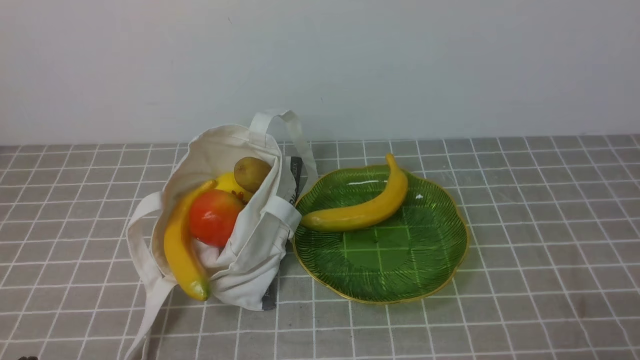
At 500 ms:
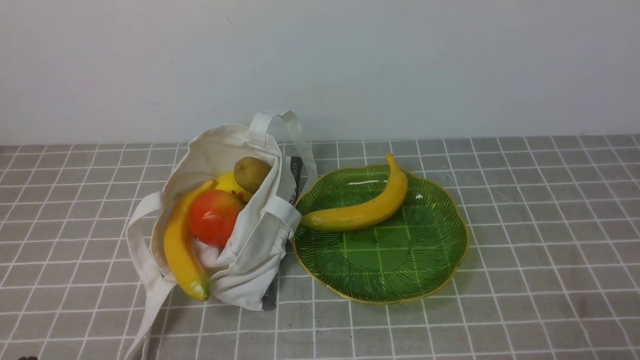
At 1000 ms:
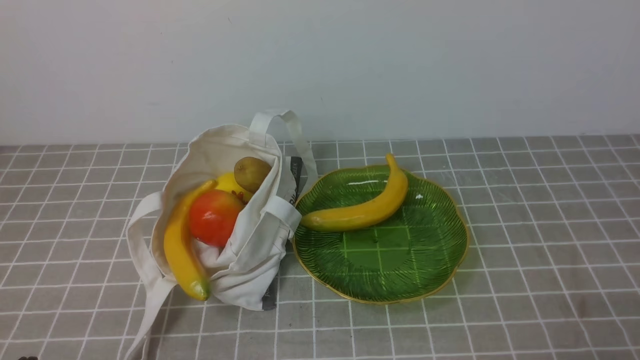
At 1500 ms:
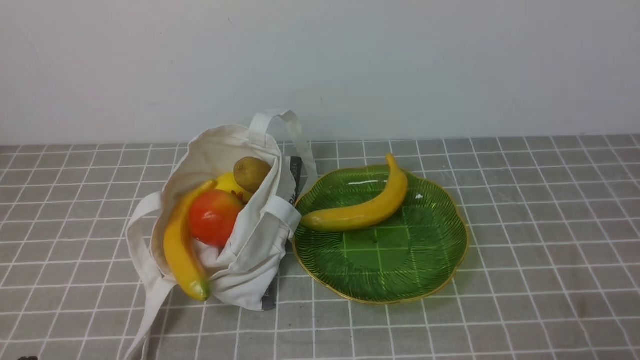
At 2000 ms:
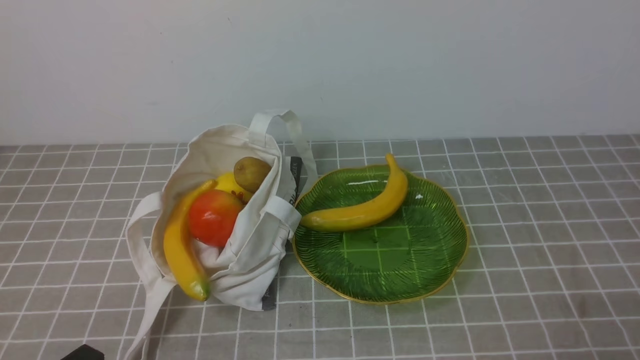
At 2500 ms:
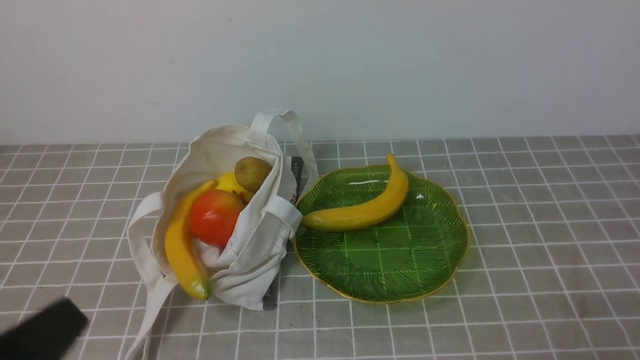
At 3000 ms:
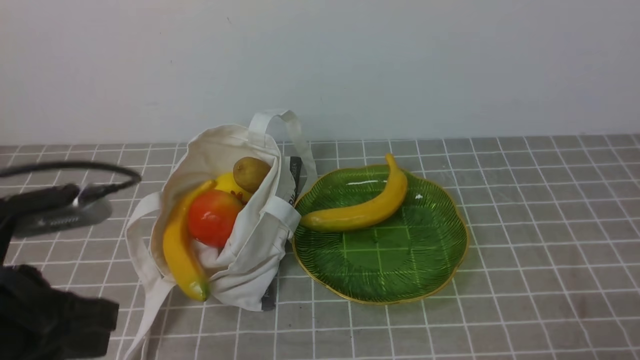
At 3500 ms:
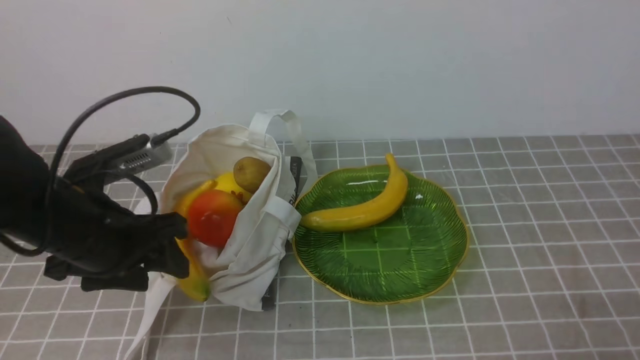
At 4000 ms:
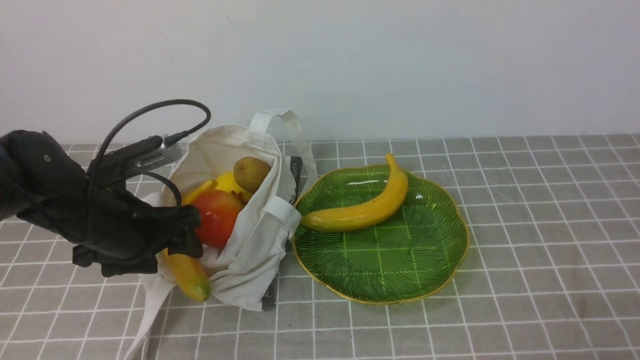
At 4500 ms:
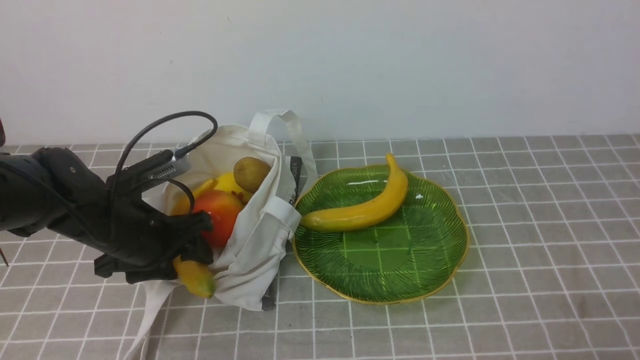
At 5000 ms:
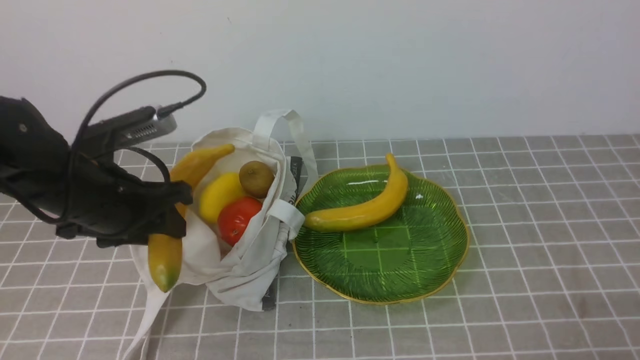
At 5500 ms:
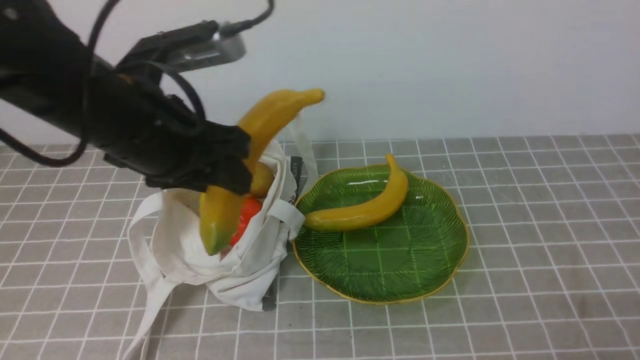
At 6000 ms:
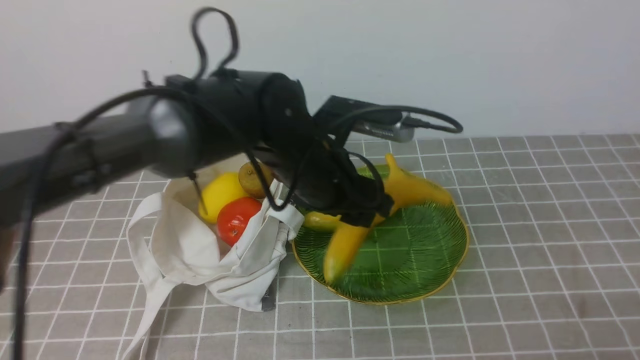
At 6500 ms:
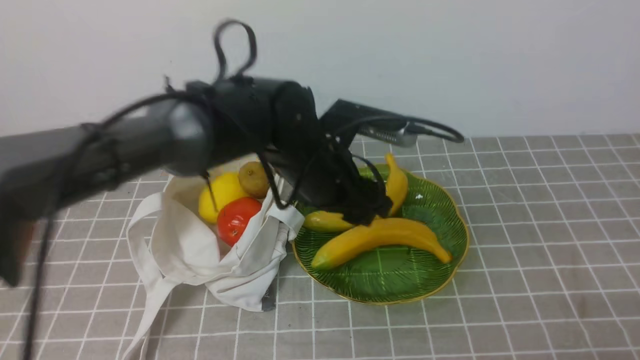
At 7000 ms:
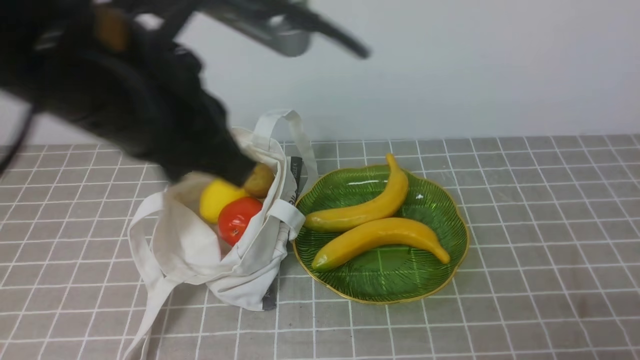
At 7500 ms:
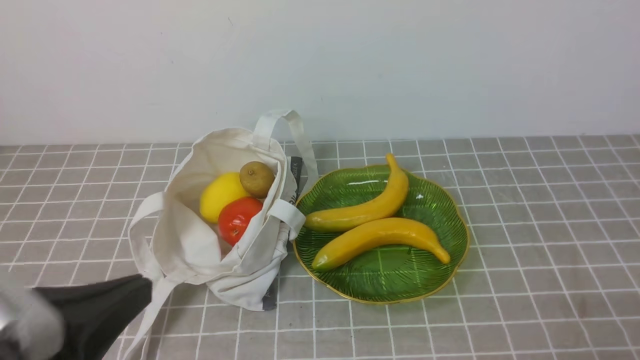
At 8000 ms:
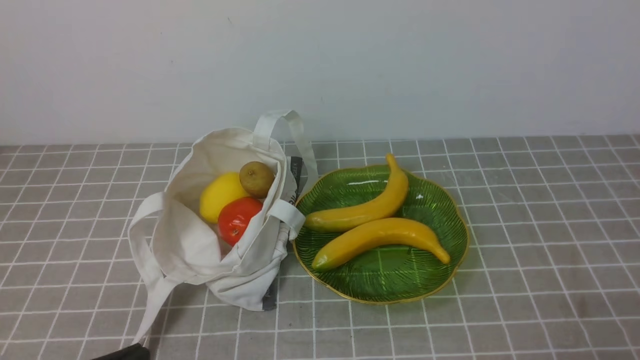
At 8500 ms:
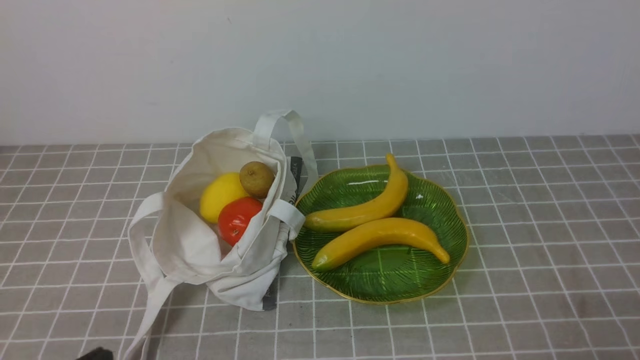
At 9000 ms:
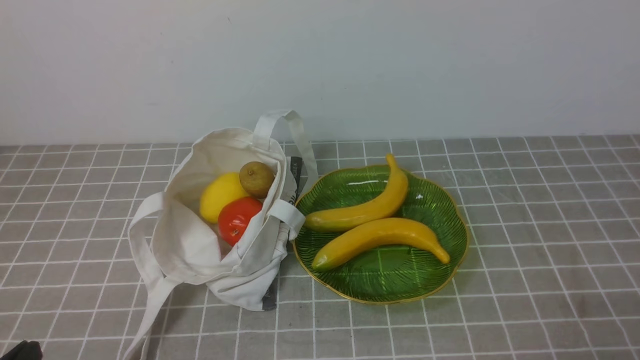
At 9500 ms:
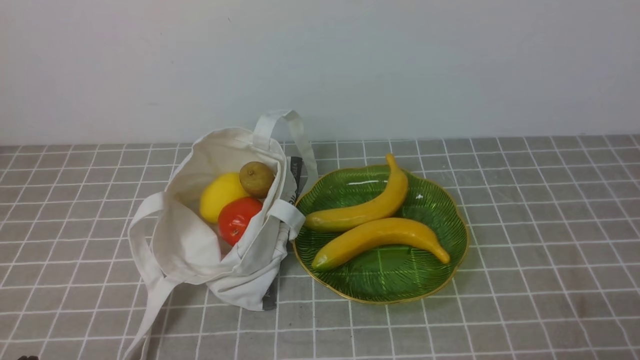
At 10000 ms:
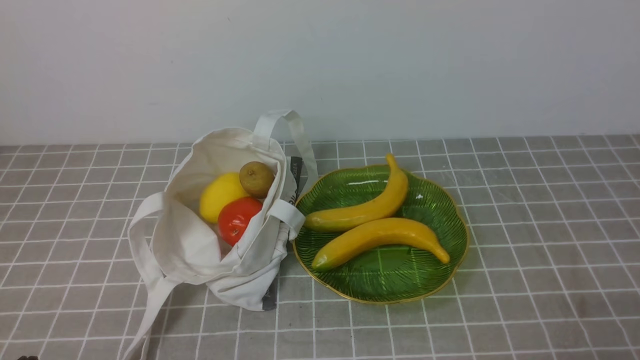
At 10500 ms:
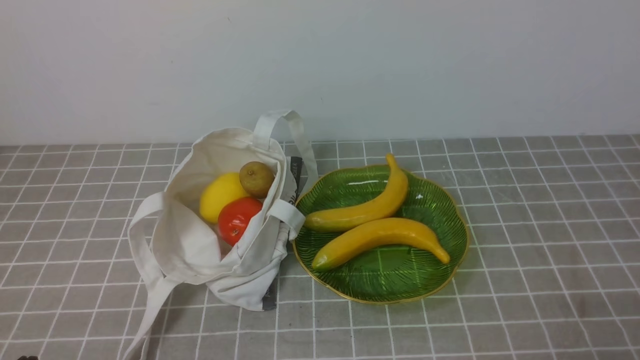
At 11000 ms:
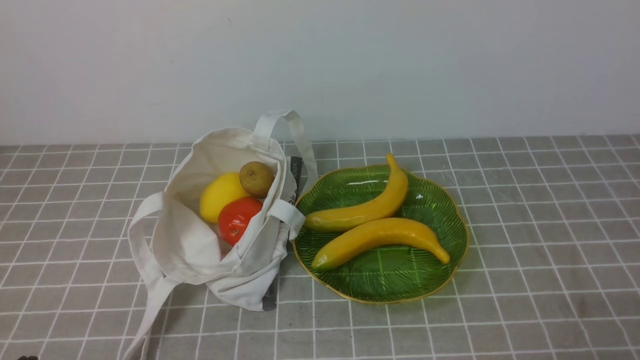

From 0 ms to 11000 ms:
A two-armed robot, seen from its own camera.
Step, from 0 ms to 4500 ms: use the left arm to grab a banana from the bag.
Step, from 5000 ms to 6000 ms: use the left arm to put the banana into the empty plate on the right.
From 2000 ms to 3500 ms: The left gripper is displaced forward by roughly 20 cm, and opens up.
From 3500 ms to 5500 ms: The left gripper is displaced upward and to the right by roughly 10 cm.
From 5500 ms to 7500 ms: The left gripper shifts some 20 cm backward, and closes.
From 7500 ms to 9000 ms: The left gripper travels downward and to the left by about 15 cm.
